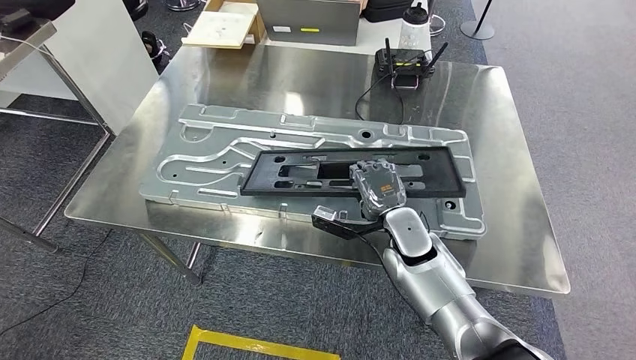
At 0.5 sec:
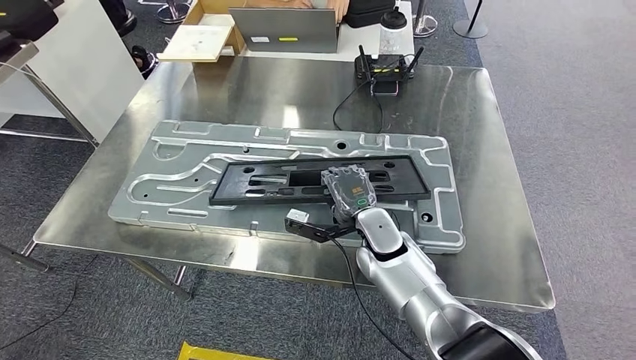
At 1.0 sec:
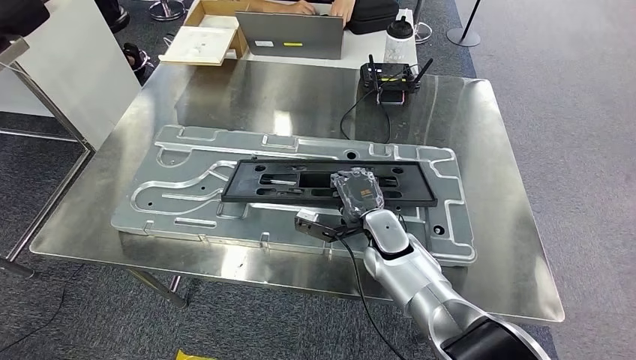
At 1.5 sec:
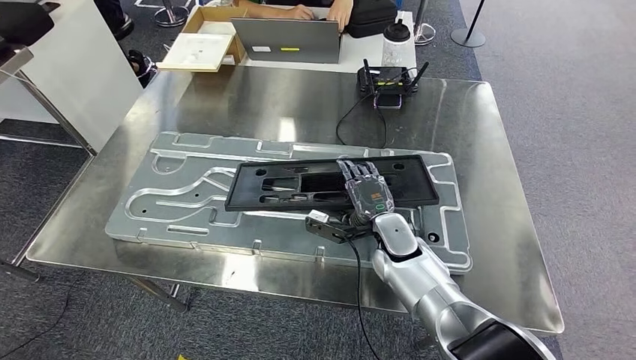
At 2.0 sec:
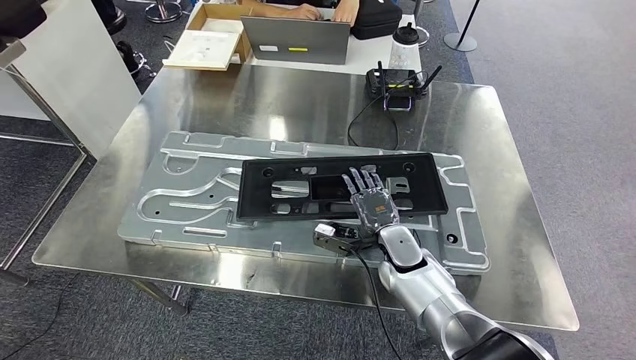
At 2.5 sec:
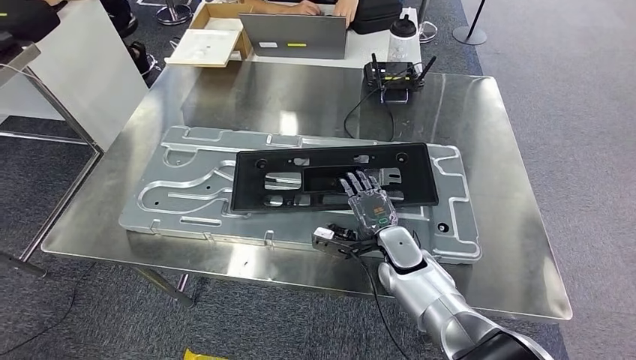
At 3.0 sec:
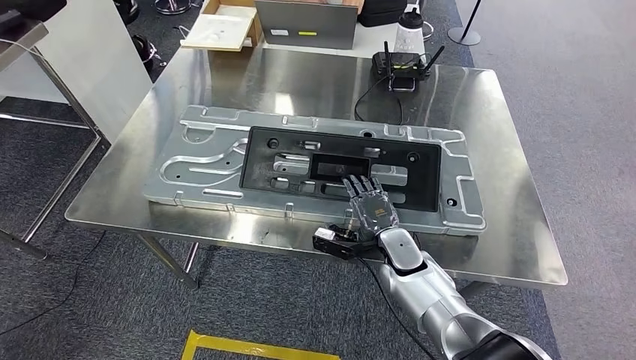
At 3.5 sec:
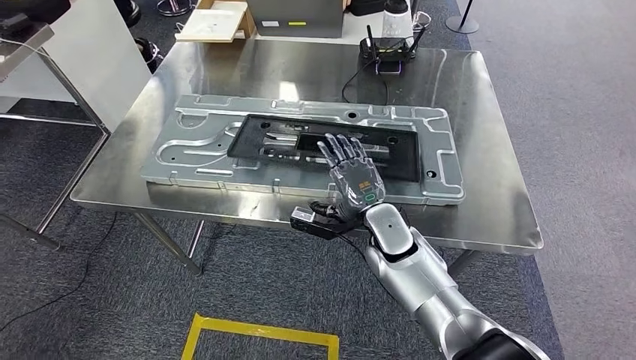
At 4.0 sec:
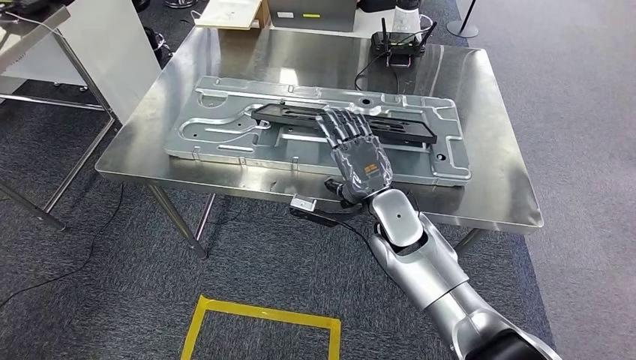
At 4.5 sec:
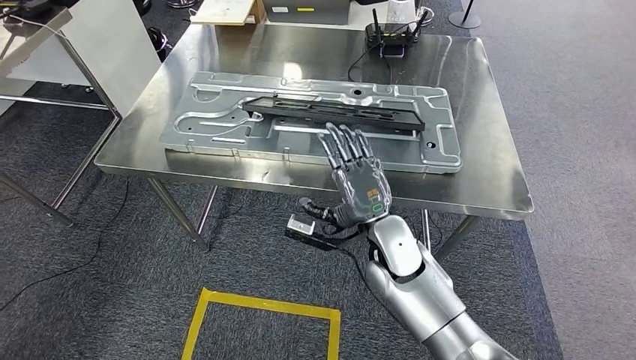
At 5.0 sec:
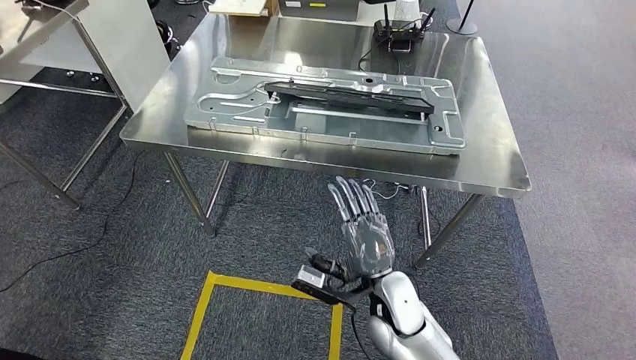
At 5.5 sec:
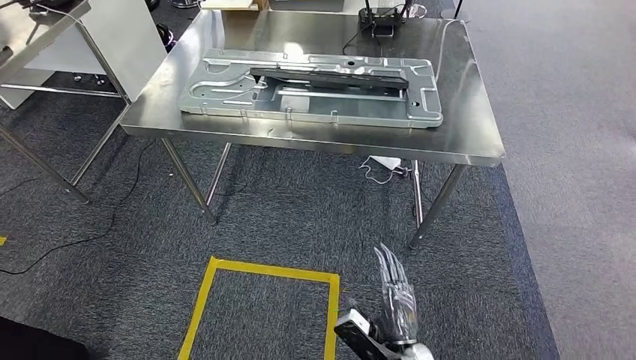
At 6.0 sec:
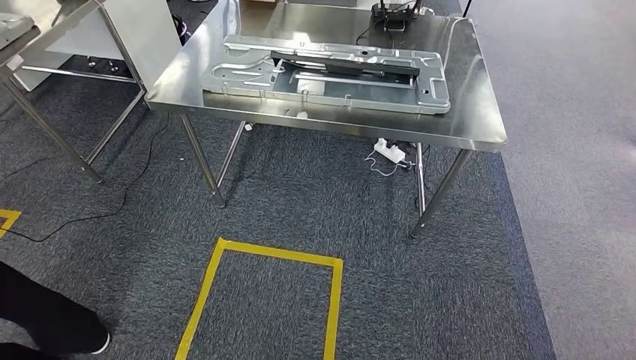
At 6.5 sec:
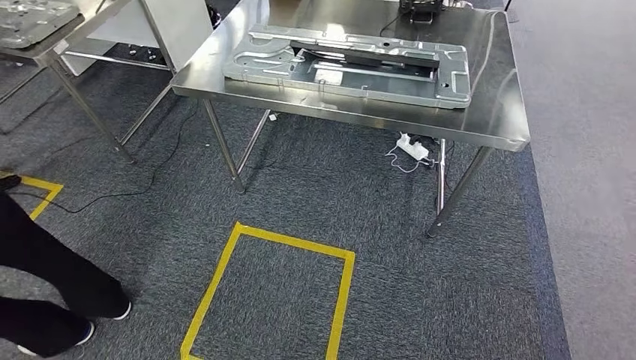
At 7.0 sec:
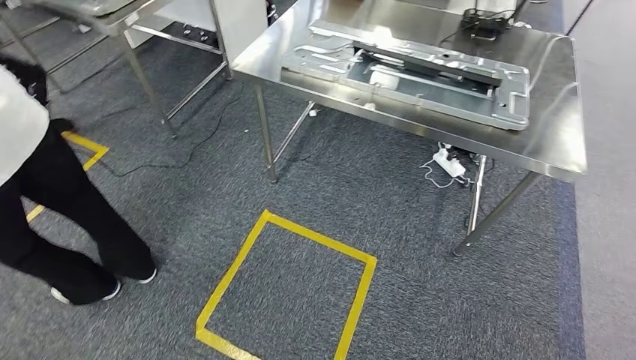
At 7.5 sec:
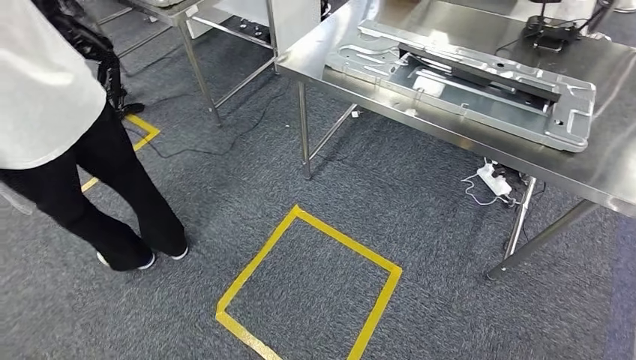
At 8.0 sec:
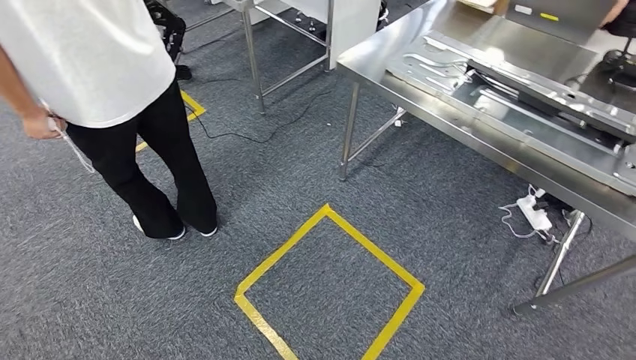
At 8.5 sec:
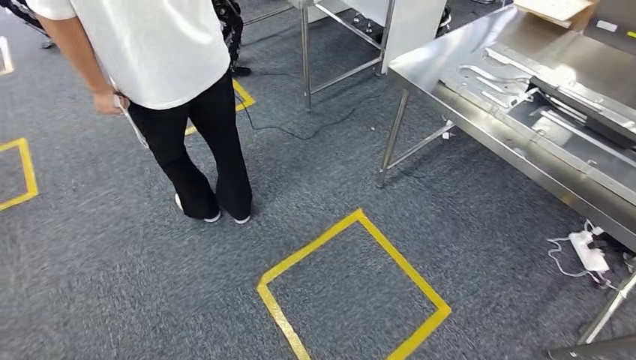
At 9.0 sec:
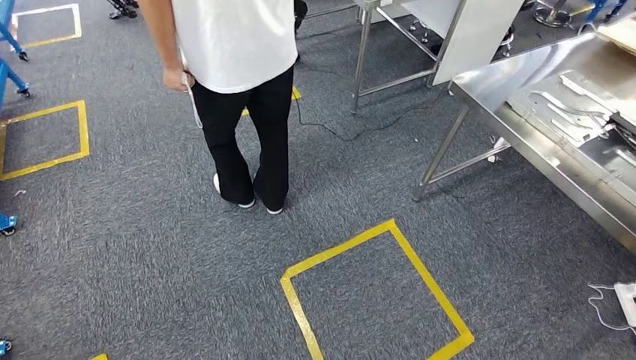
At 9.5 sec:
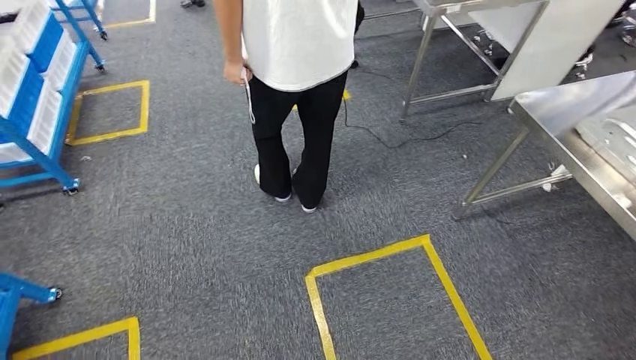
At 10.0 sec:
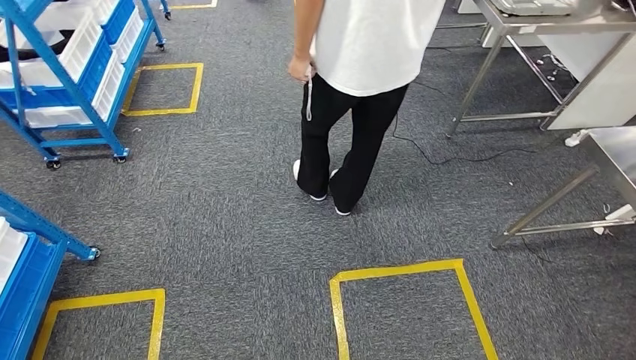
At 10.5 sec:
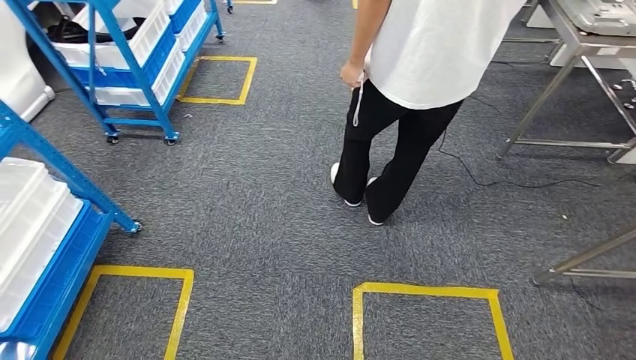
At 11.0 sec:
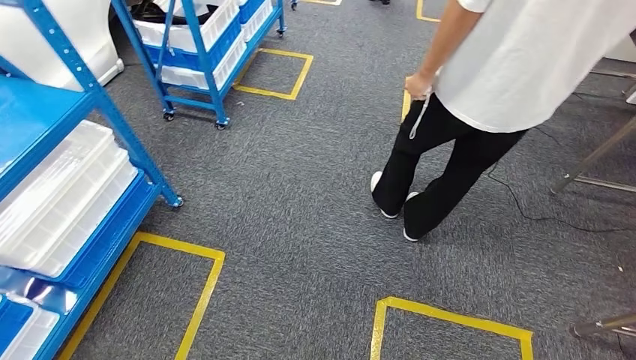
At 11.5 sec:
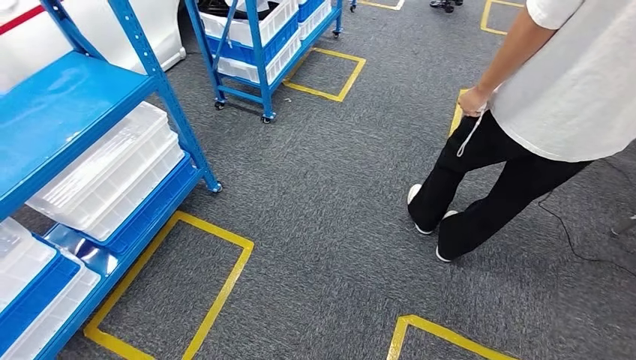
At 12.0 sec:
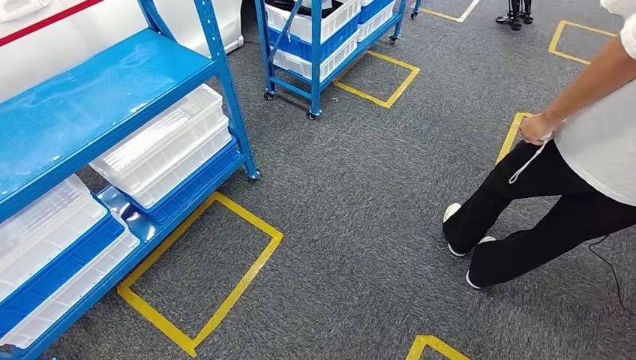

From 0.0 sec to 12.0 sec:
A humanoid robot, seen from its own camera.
Step, from 0.0 sec to 6.5 sec: Insert the large material into the corresponding slot on the workbench.

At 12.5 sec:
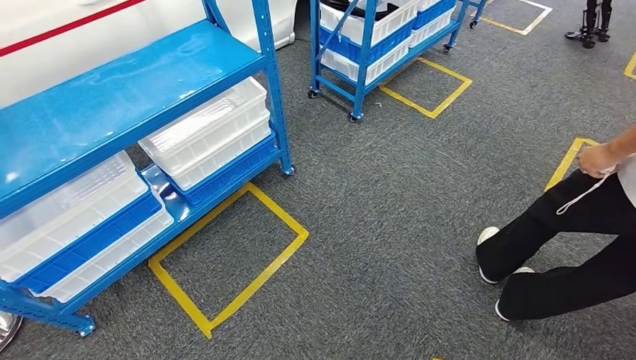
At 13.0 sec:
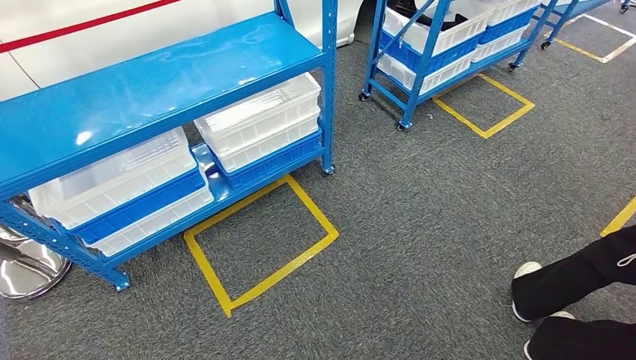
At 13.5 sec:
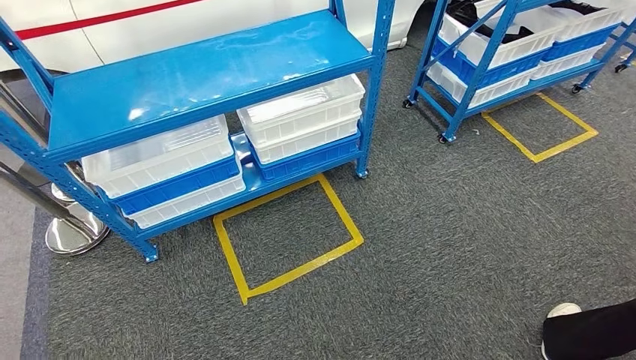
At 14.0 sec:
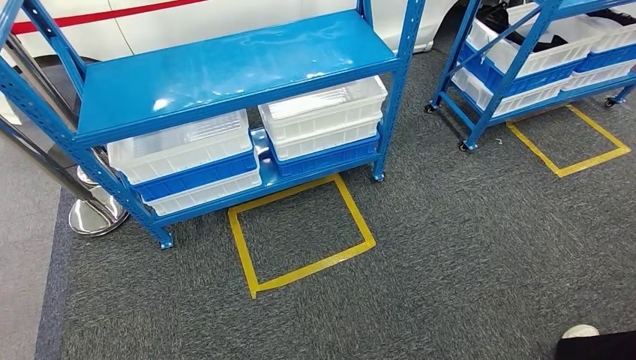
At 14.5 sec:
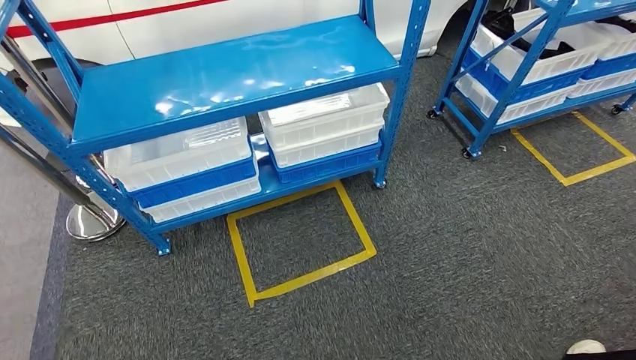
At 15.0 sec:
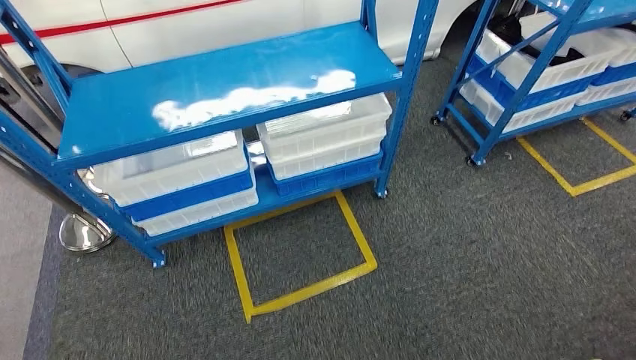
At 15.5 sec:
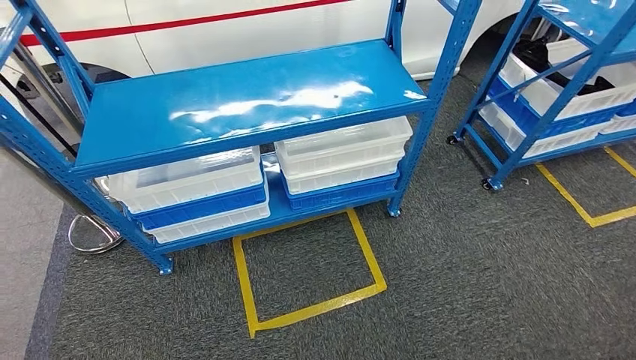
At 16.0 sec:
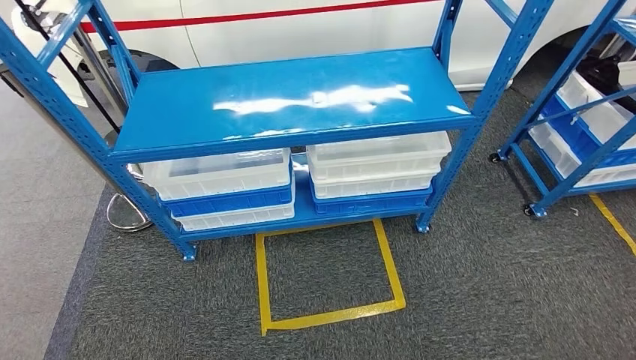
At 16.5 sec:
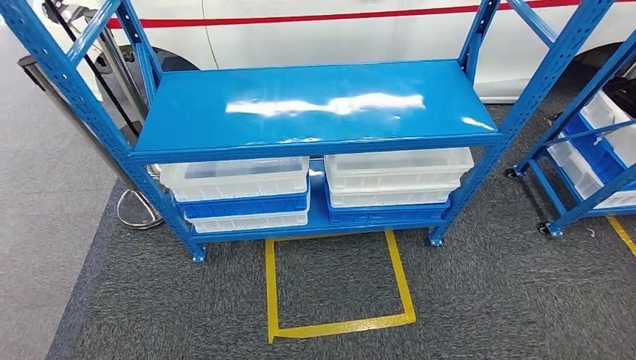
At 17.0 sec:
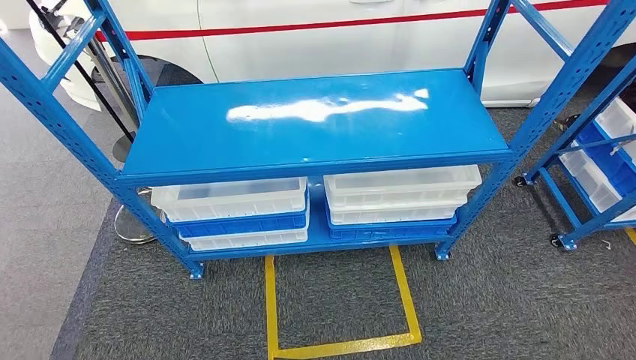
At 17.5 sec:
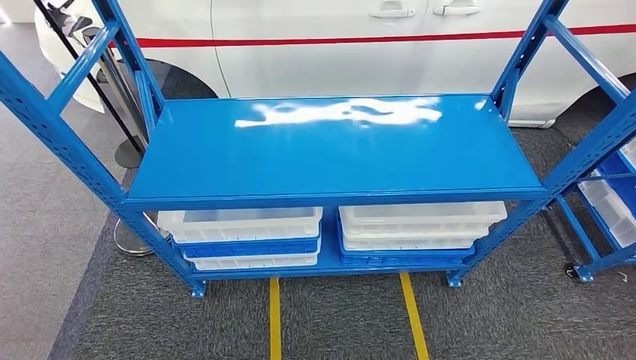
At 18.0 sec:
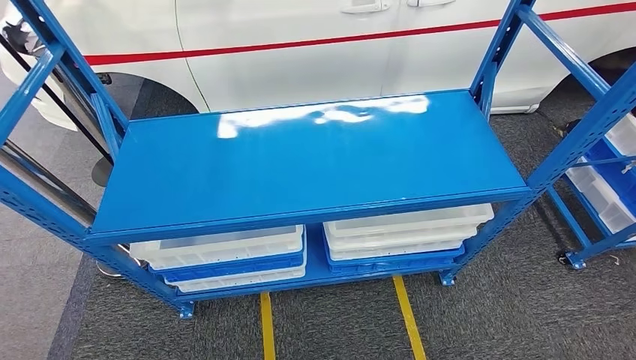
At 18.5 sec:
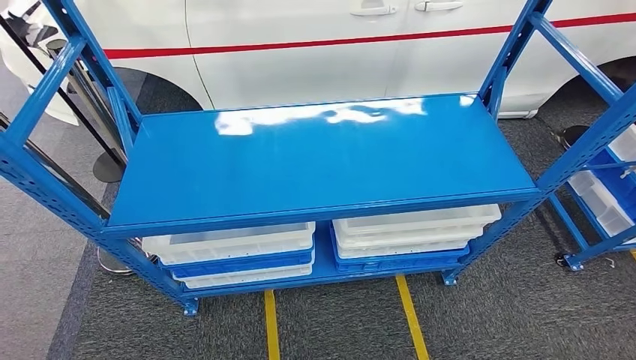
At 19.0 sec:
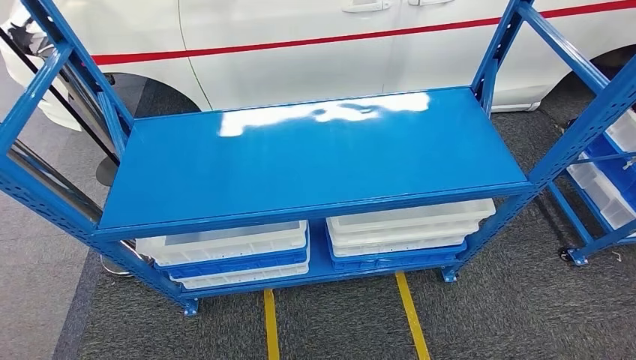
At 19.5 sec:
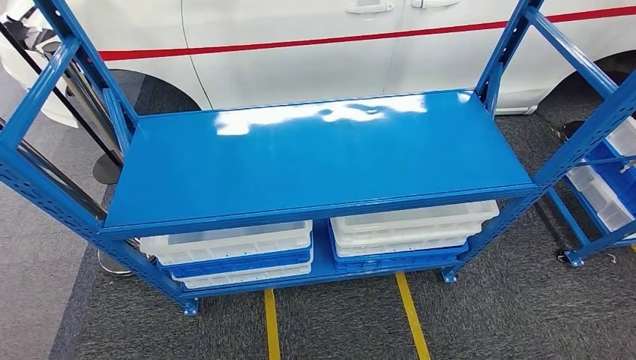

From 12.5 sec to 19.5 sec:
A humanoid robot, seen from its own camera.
Step, from 12.5 sec to 19.5 sec: Return to the initial position at the shelf.
